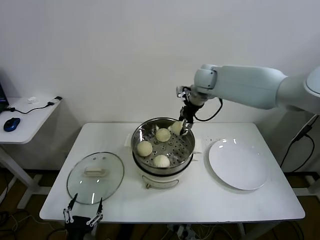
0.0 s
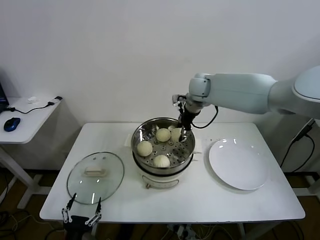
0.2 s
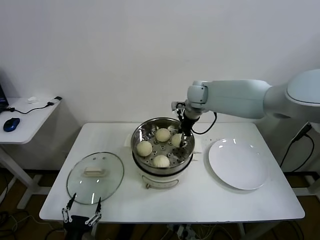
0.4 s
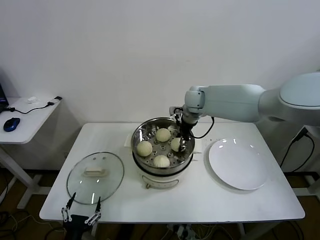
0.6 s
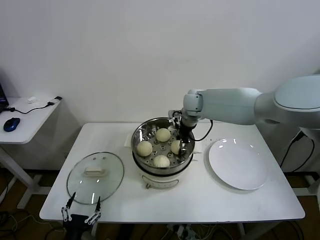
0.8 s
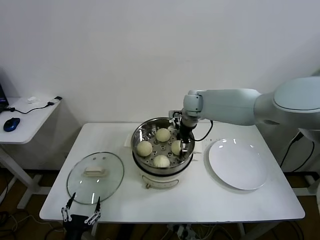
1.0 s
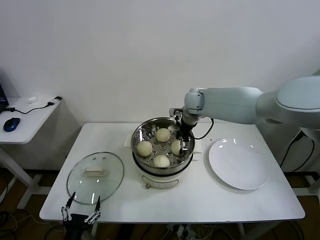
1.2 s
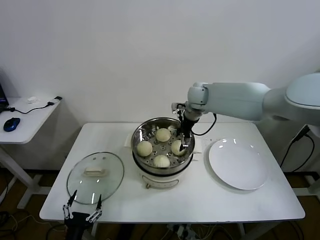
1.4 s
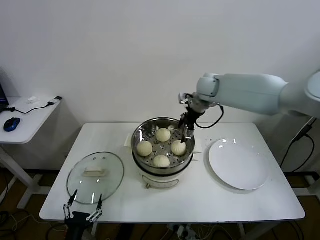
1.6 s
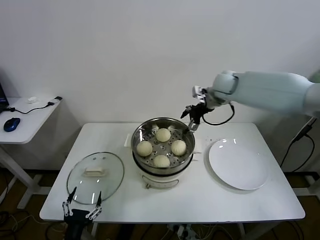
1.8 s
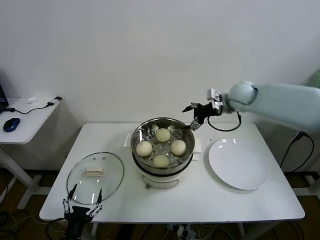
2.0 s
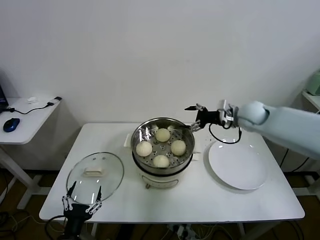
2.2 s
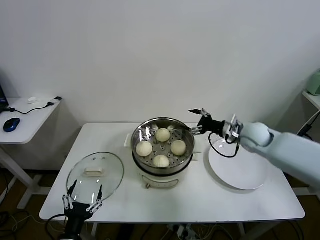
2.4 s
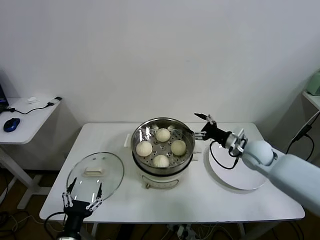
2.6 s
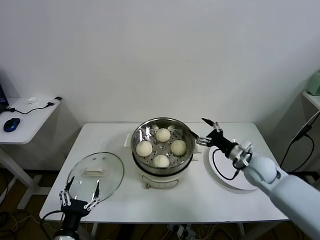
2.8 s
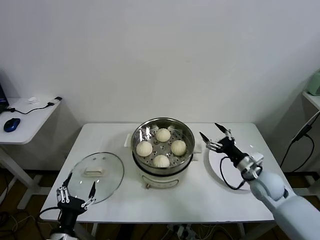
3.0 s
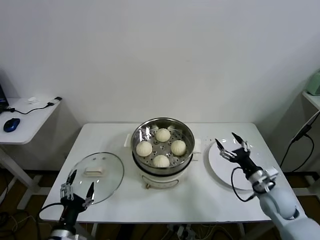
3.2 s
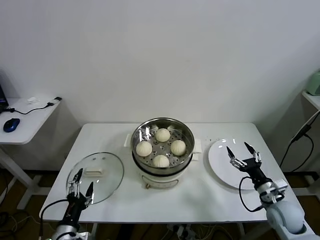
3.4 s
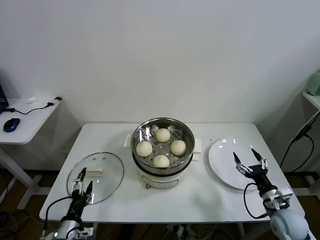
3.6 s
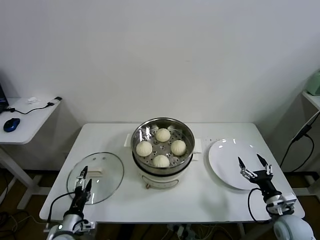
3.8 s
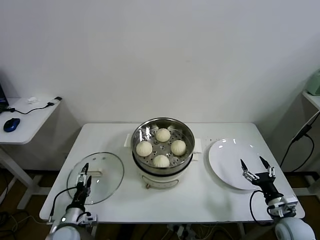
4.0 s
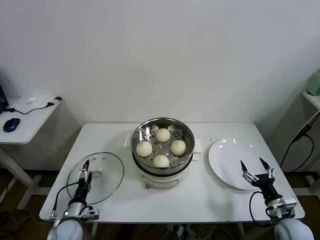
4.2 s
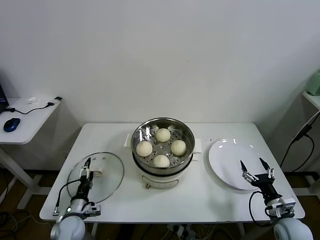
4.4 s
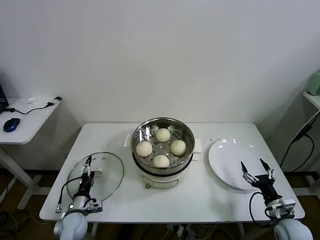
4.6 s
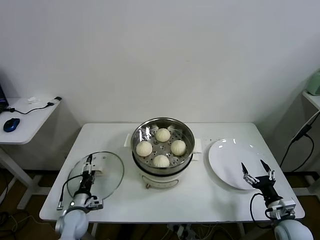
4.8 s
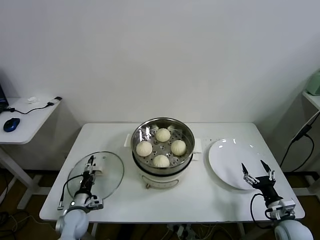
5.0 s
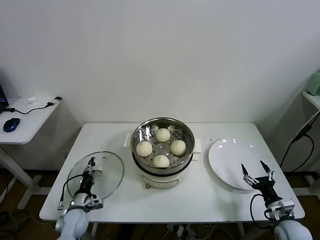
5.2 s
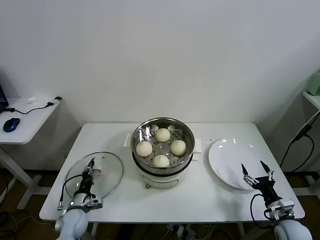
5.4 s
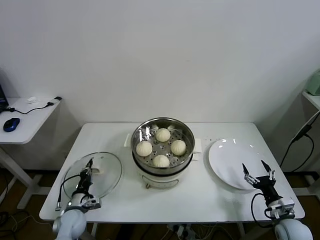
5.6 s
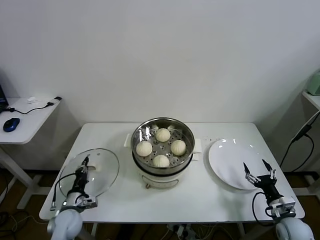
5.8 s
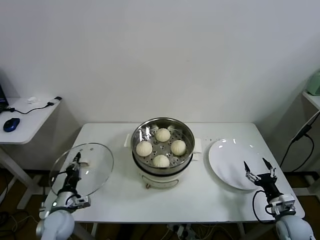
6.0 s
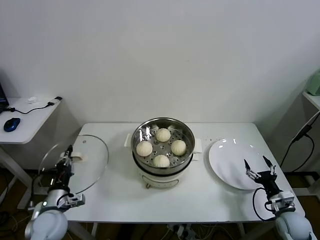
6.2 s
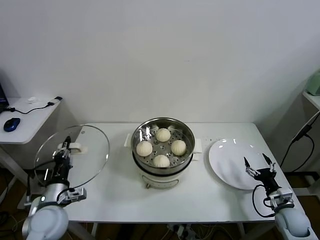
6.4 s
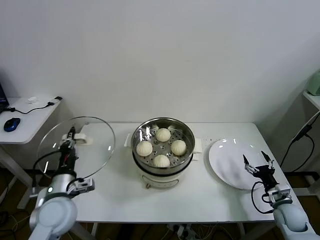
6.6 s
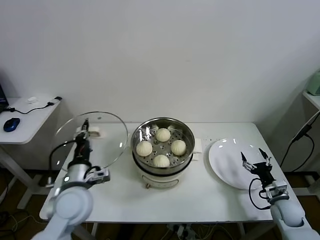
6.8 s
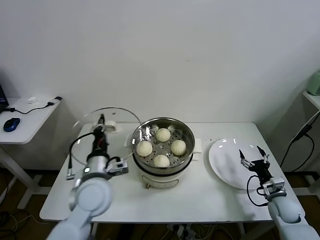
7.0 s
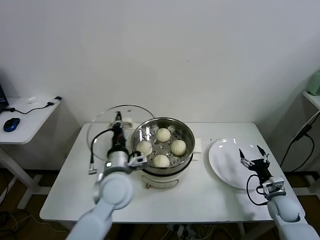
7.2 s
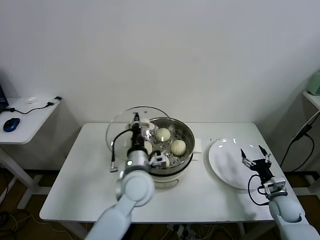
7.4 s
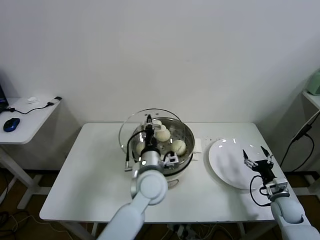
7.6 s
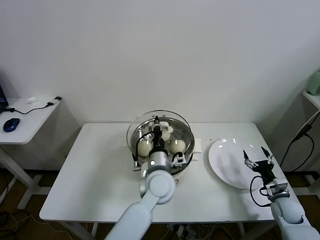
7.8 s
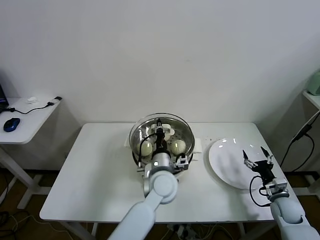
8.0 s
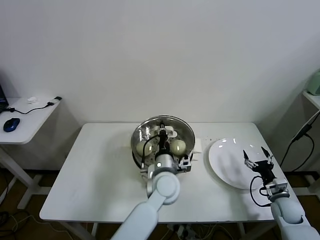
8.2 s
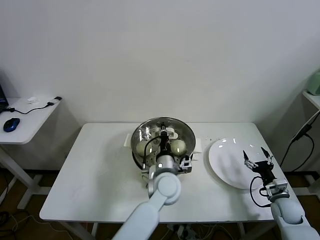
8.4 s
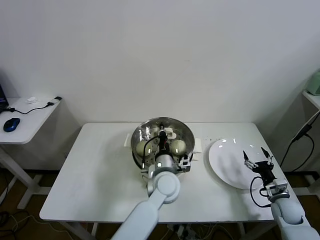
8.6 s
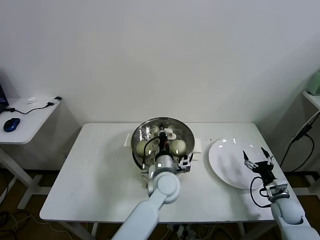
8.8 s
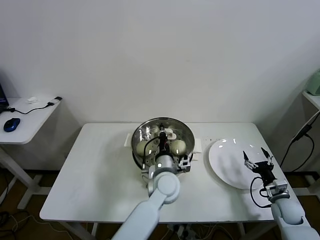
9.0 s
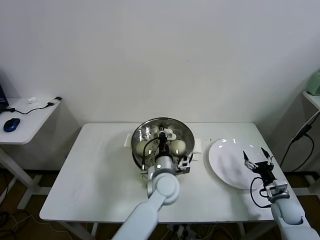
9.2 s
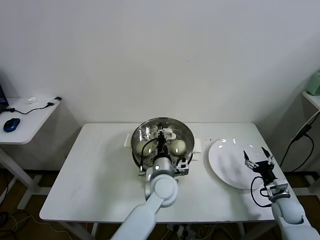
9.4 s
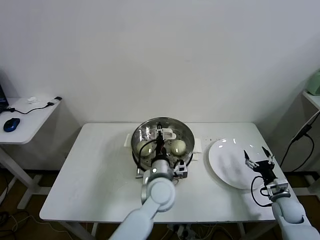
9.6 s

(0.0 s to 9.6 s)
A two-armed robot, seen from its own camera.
Task of the whole recording: take steamed baozi put them in steamer.
Step, 1.4 s - 5.4 s: Grasp the pot lid with left gripper.
0.0 s - 1.6 s: The right gripper travels downward and back again, about 10 cm each way, and opens up.
1.6 s - 3.2 s: The left gripper moves roughly 5 cm. Meanwhile the right gripper goes about 40 cm backward, downward and to the right.
3.2 s - 4.8 s: The right gripper moves backward and downward, approximately 10 cm, while the left gripper heads forward and downward, covering about 20 cm.
4.8 s - 6.4 s: The left gripper is displaced upward by some 15 cm, and closes up.
6.4 s - 8.0 s: The left gripper travels to the right by about 35 cm.
8.0 s - 9.6 s: The left gripper opens its fingers.

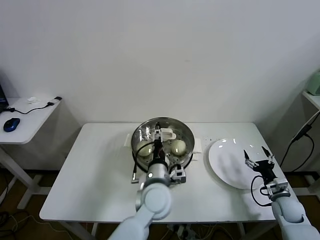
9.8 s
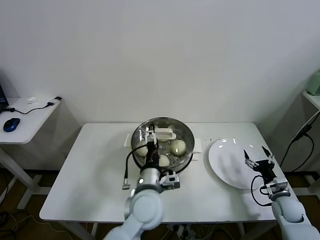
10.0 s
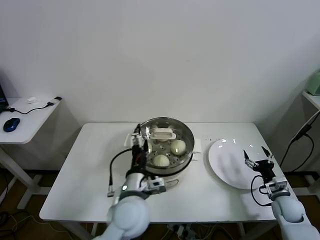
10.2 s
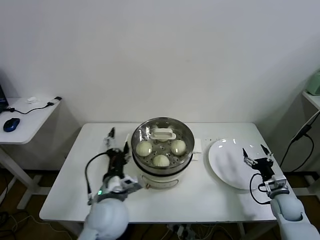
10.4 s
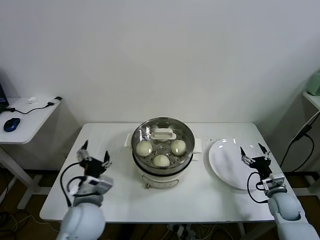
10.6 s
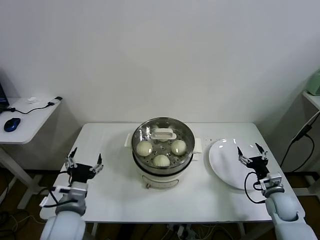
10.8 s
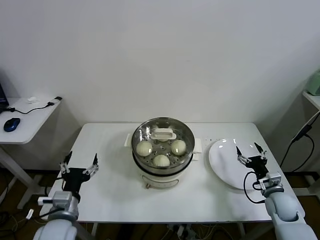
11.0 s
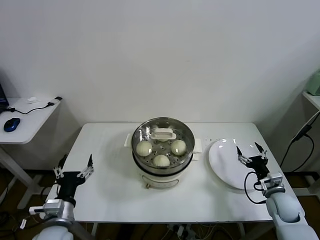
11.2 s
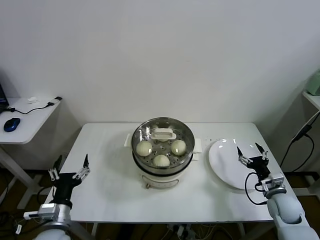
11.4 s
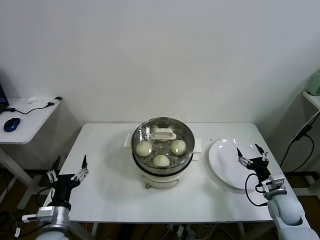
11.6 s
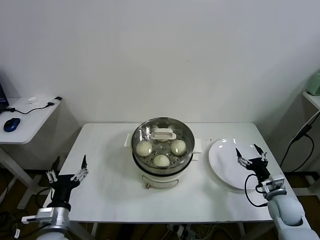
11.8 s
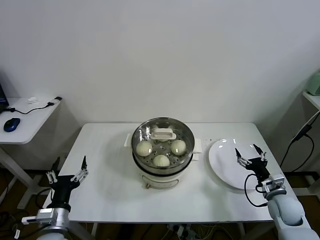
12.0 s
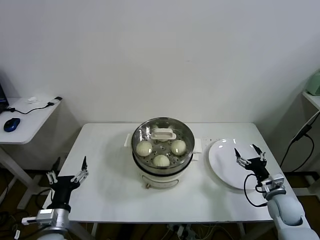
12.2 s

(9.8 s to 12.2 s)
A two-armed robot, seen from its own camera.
Task of the whole recording: take steamed baozi put them in steamer.
9.8 s - 11.0 s: The left gripper heads to the left, covering roughly 25 cm; the right gripper ends up approximately 5 cm from where it was.
11.0 s - 12.2 s: The left gripper changes place by approximately 5 cm.

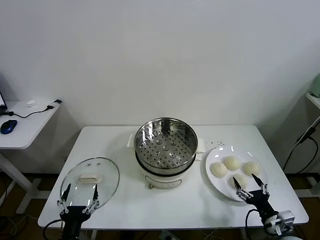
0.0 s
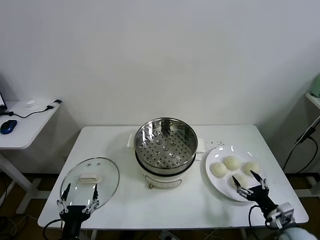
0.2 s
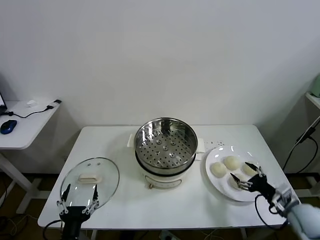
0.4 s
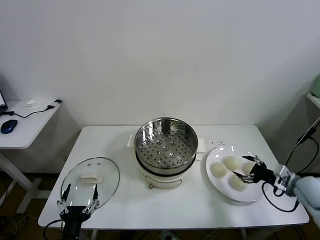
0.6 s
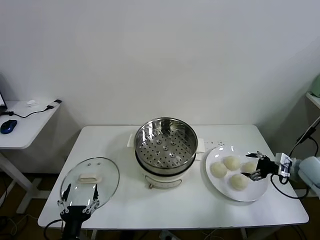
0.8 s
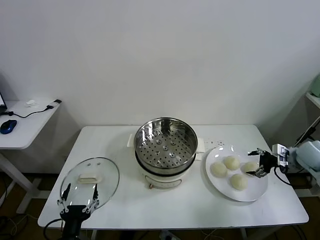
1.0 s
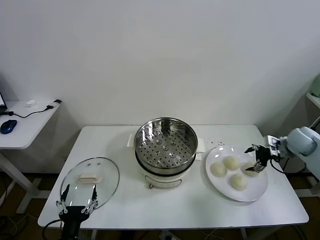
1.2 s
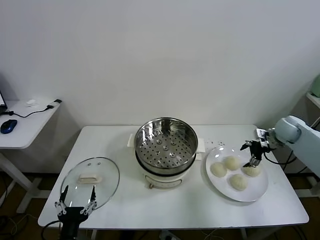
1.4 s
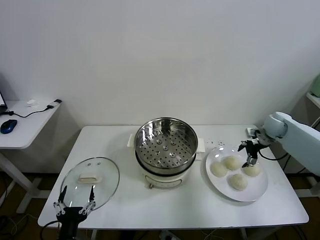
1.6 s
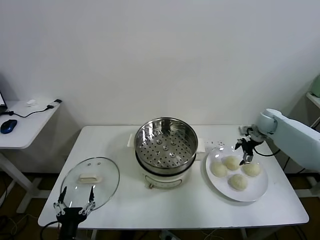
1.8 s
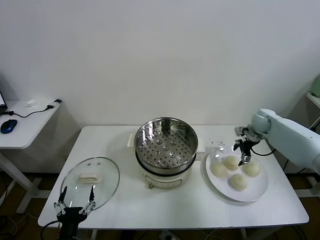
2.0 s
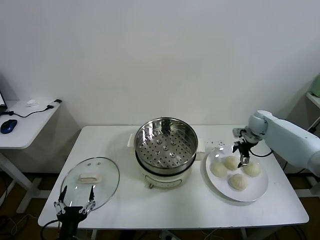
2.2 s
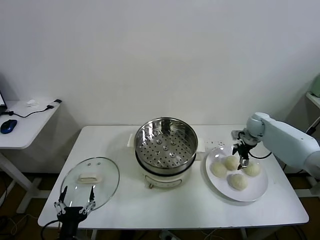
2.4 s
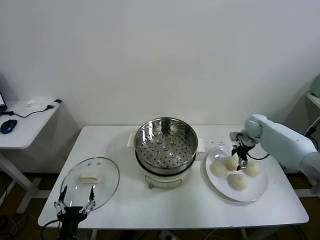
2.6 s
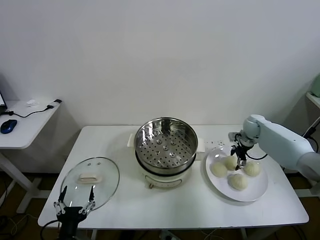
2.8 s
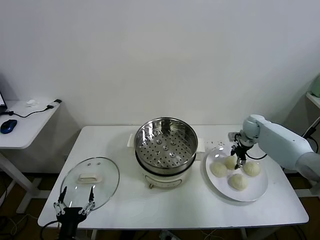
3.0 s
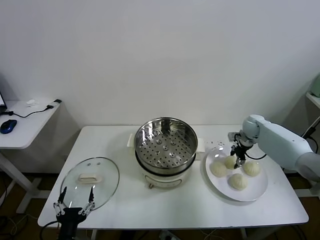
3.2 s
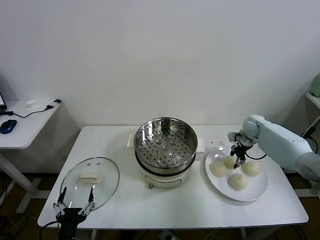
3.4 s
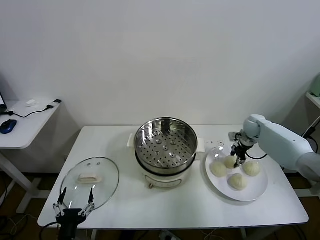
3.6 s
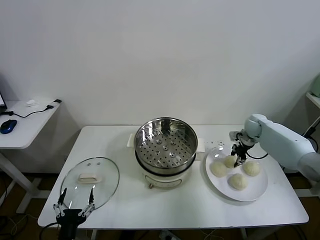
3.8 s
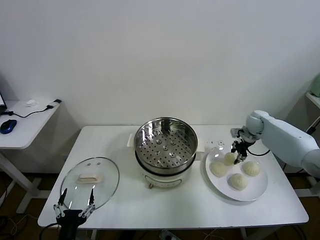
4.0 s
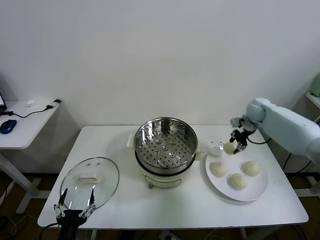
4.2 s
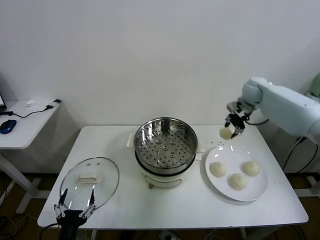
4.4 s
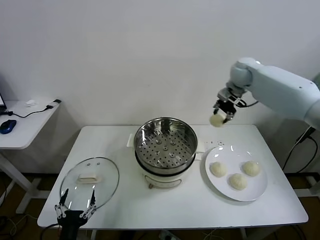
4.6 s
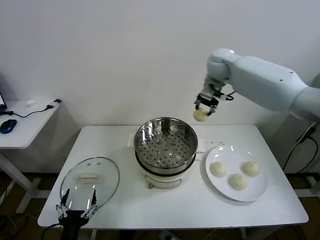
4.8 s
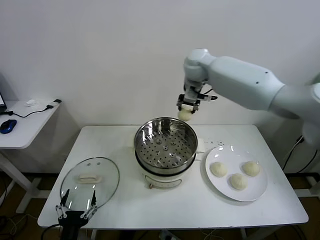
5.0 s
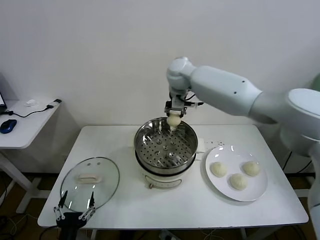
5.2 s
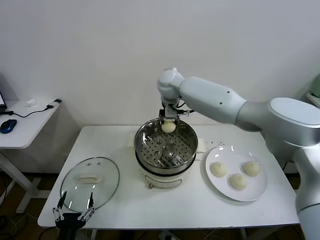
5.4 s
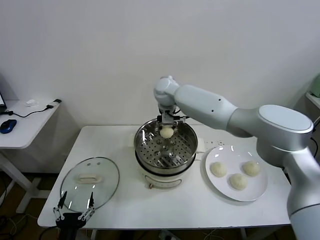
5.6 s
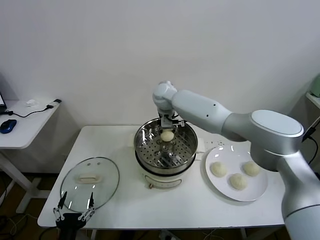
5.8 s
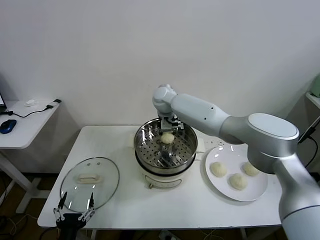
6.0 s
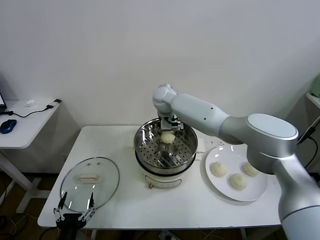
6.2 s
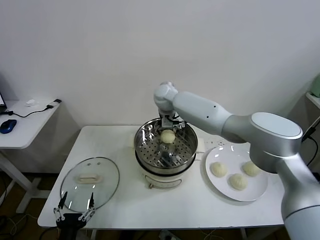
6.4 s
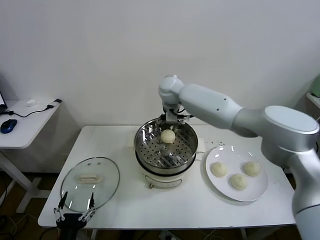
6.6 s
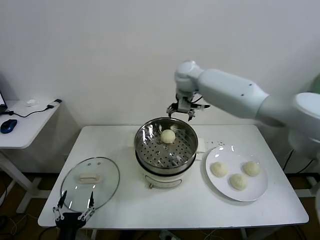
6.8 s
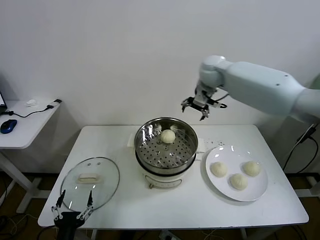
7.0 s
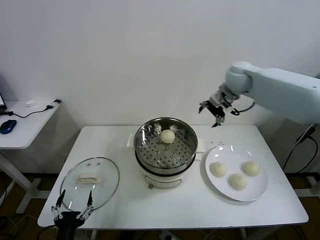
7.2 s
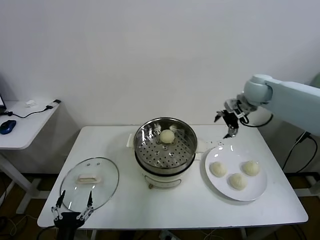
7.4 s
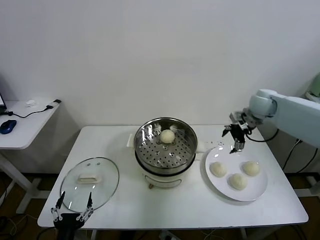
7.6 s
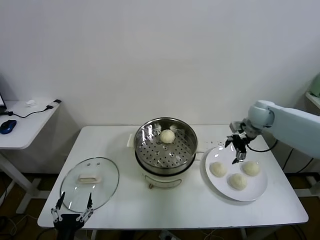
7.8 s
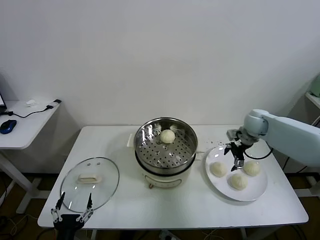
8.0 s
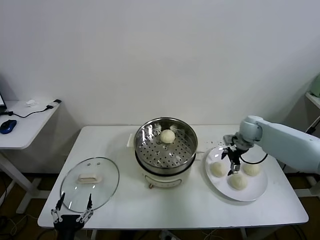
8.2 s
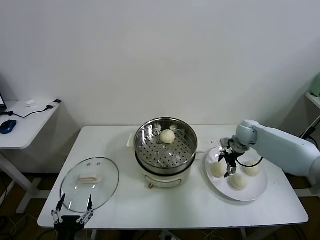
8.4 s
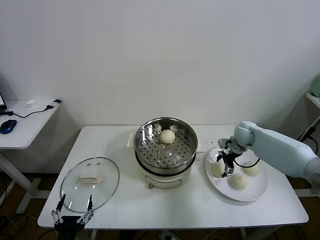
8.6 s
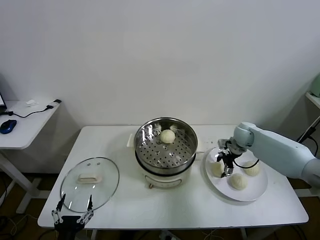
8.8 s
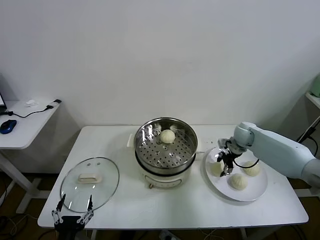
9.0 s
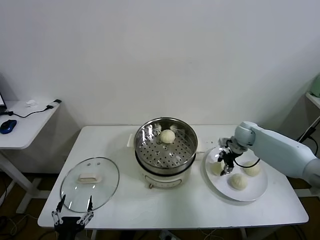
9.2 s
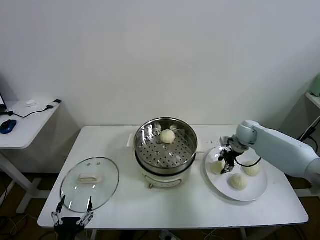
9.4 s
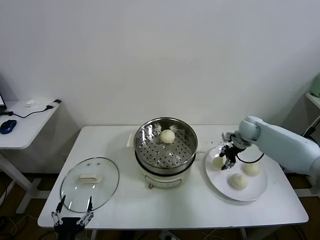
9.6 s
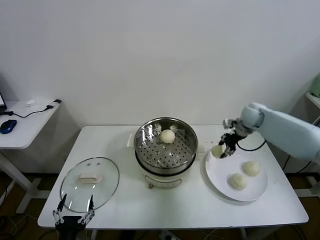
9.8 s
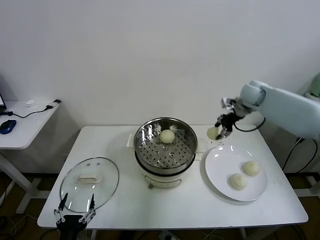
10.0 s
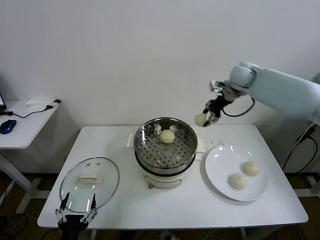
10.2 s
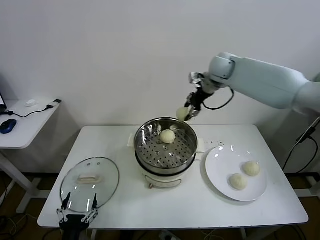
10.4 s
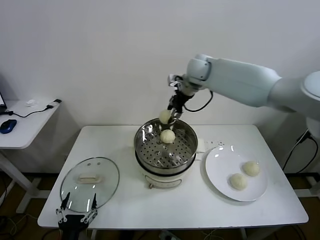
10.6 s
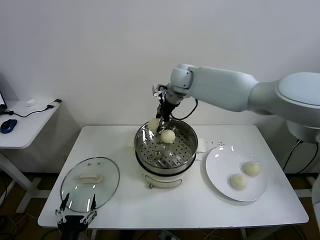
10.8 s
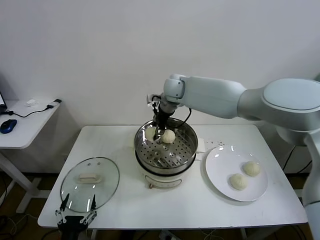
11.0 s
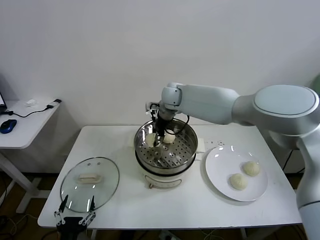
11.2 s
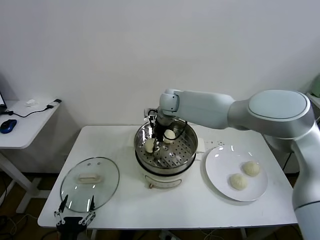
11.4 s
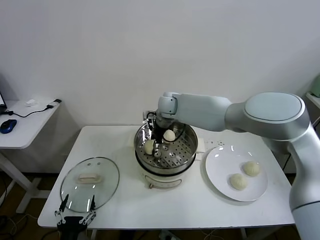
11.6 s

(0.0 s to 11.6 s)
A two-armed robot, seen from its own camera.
Task of the whole recording: take steamed baozi put them in steamer.
Step, 0.0 s - 3.2 s: Grasp the baozi in the plate with right gripper.
Step, 3.4 s - 6.4 s: Place the baozi on the steamer with right gripper.
Step, 6.6 s - 9.0 s: Grasp the baozi in the plate with right gripper.
1.4 s - 2.8 s: The right gripper heads to the left, forward and downward, covering approximately 10 cm.
2.8 s - 4.4 s: The right gripper heads upward, covering about 20 cm, and closes its fingers.
4.4 s - 5.8 s: The right gripper heads to the left, covering roughly 30 cm.
5.8 s - 7.2 s: The right gripper goes some 25 cm to the right, and opens its fingers.
7.2 s - 8.8 s: The right gripper goes approximately 25 cm downward.
8.8 s - 10.2 s: The right gripper is displaced upward by some 25 cm, and closes.
10.2 s - 11.6 s: The right gripper moves to the left and downward, about 25 cm, and opens.
